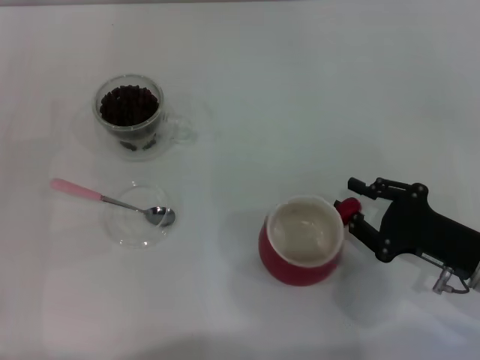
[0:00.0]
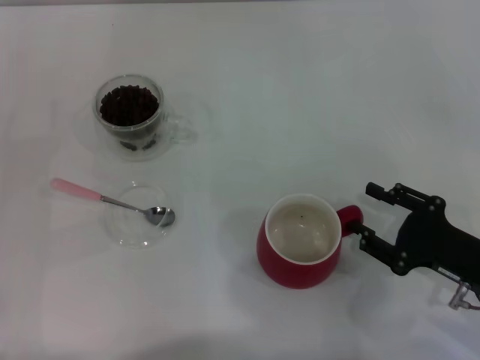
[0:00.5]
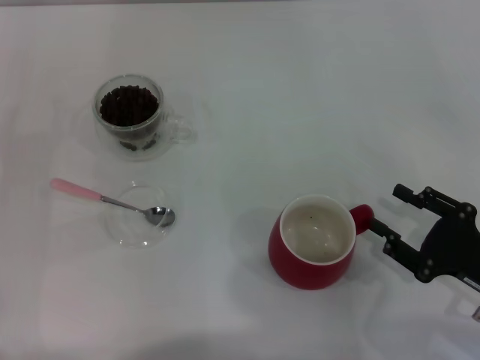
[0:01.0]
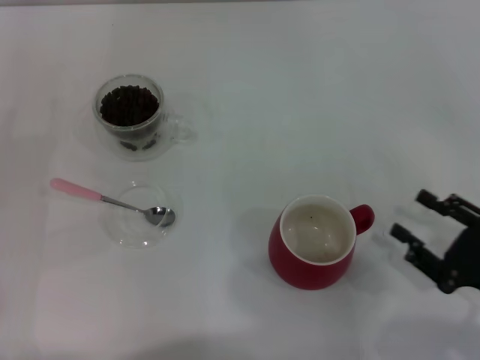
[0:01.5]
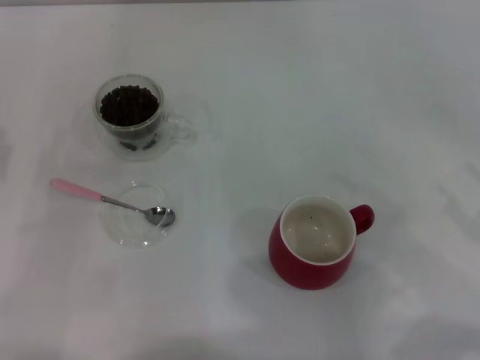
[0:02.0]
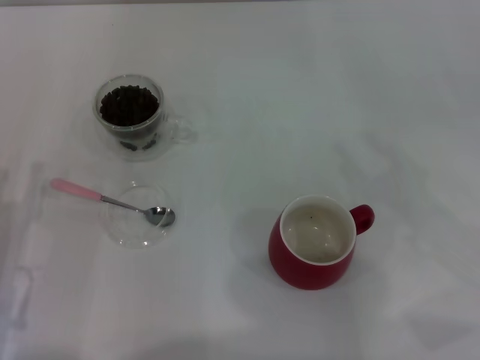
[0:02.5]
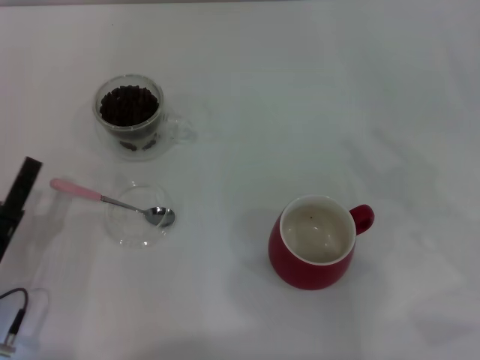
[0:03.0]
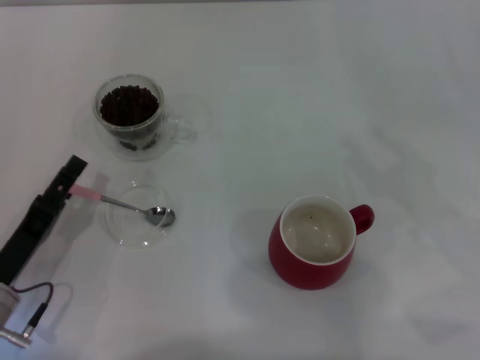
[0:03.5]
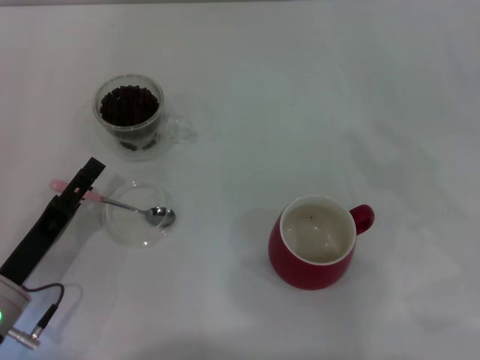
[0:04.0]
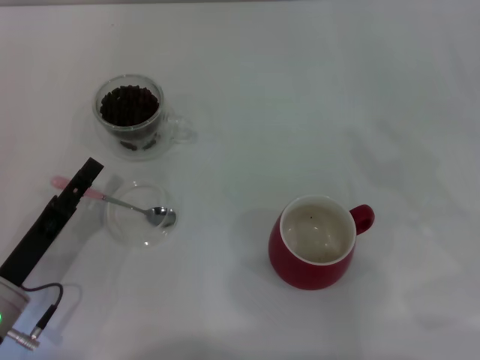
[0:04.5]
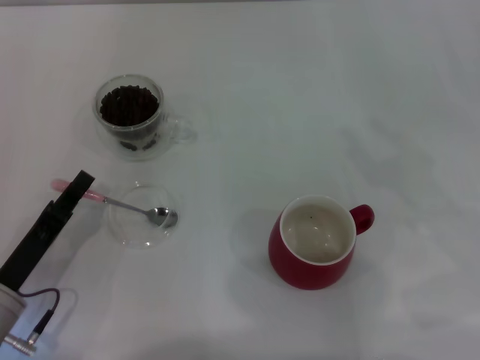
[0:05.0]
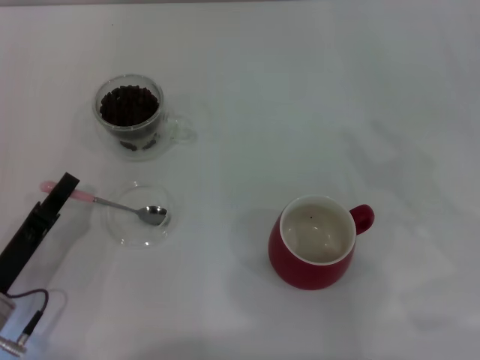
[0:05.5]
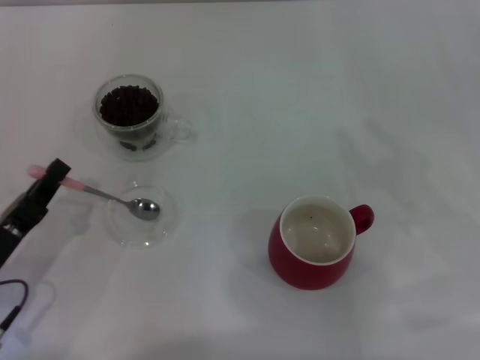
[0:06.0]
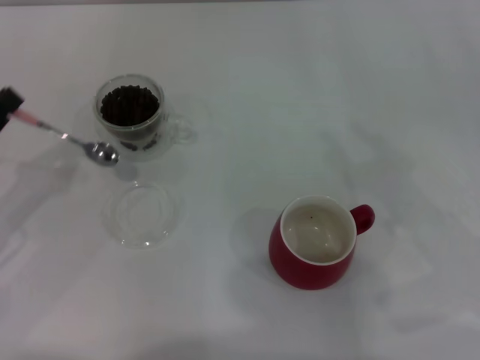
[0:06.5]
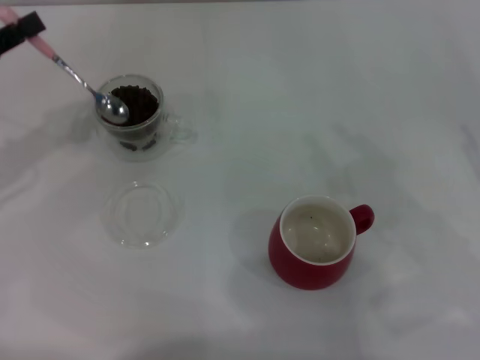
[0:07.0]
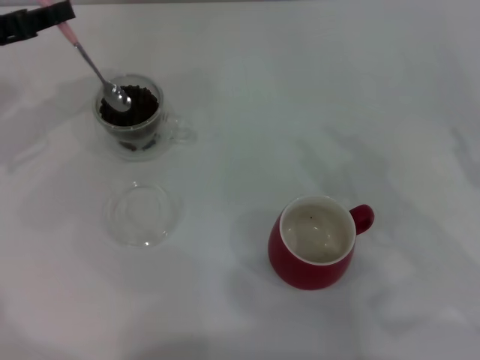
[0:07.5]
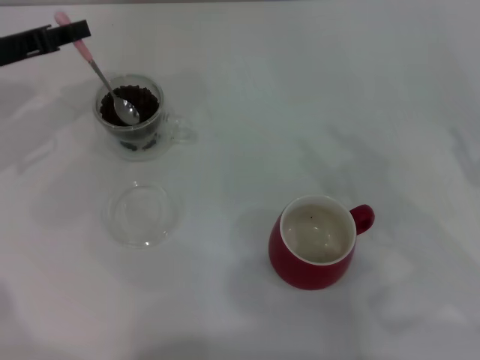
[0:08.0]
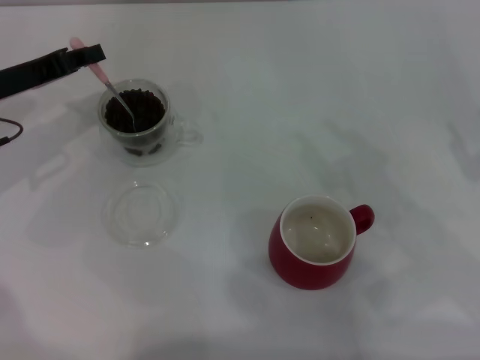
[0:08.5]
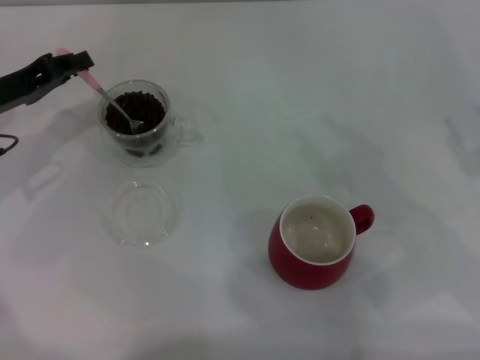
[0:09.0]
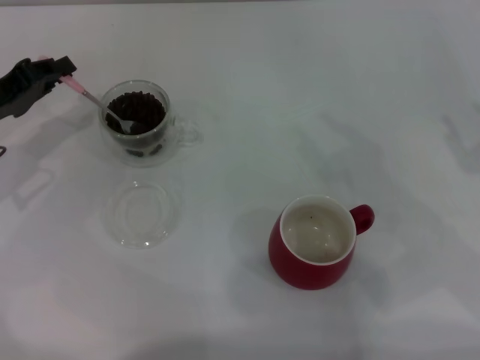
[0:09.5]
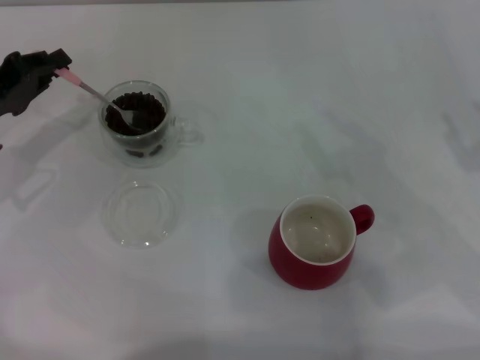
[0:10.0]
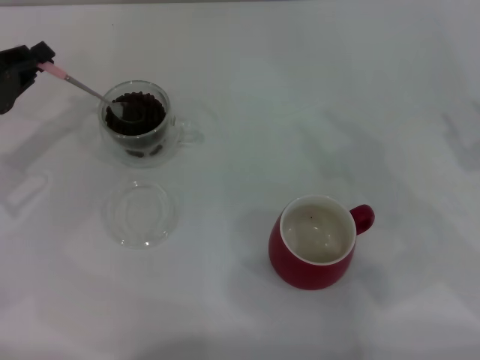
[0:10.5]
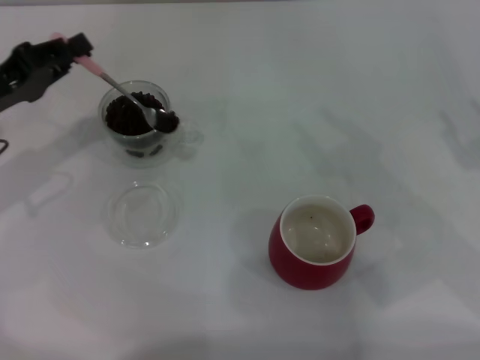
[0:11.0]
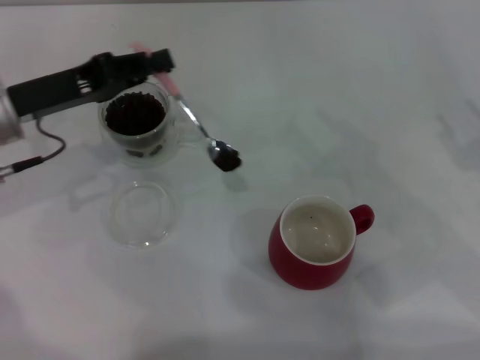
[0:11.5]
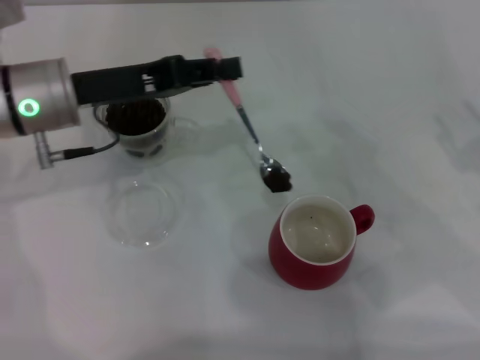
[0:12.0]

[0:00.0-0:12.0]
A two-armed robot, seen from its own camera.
Task of the whole recording: Use a pink spoon to take out the coffee beans from the glass and pour them into the red cup.
Step, 0:02.0 to 0:06.0: Pick up the spoon with the right gripper.
0:00.0 to 0:02.0: The left gripper ends up roughly 5 cm from where it was. Meanwhile the right gripper travels to the right, backward and upward by some 10 cm, and opens up.
0:02.0 to 0:04.0: The left gripper goes about 10 cm to the right and downward.
0:04.0 to 0:06.0: The left gripper closes up.
0:06.0 to 0:08.0: The left gripper goes about 25 cm forward and upward.
0:08.0 to 0:10.0: The left gripper ends up roughly 5 cm from where it was.
0:10.0 to 0:12.0: The left gripper moves to the right, roughly 10 cm.

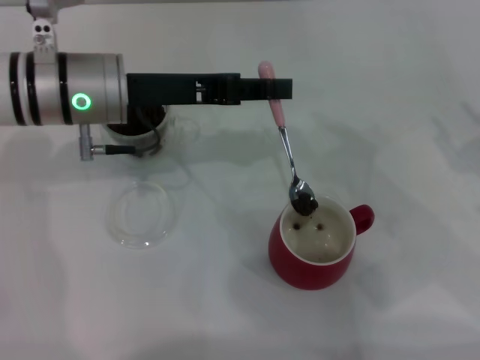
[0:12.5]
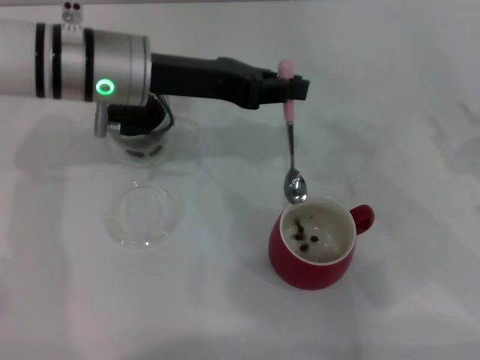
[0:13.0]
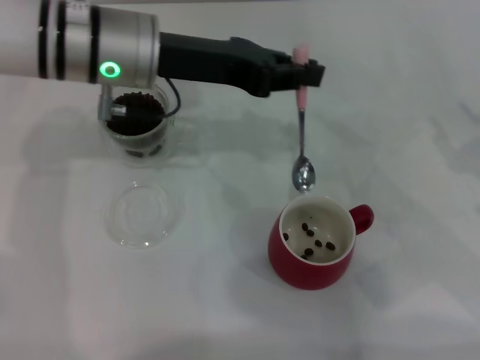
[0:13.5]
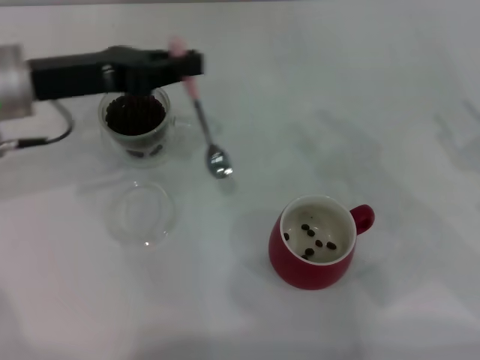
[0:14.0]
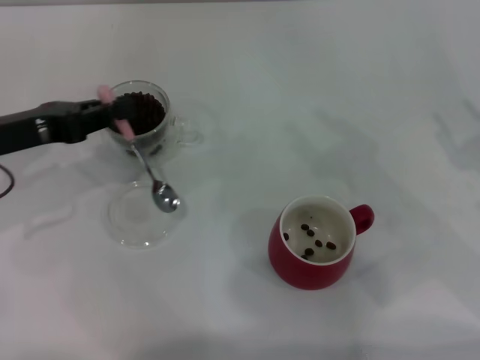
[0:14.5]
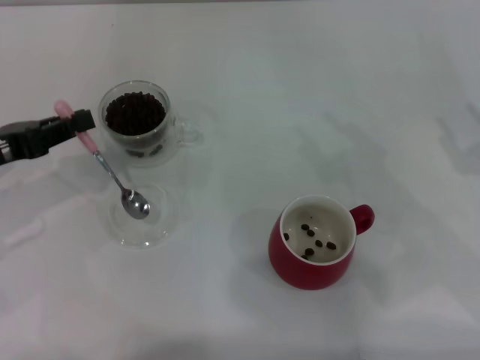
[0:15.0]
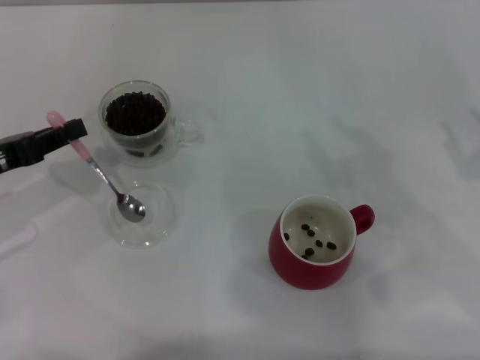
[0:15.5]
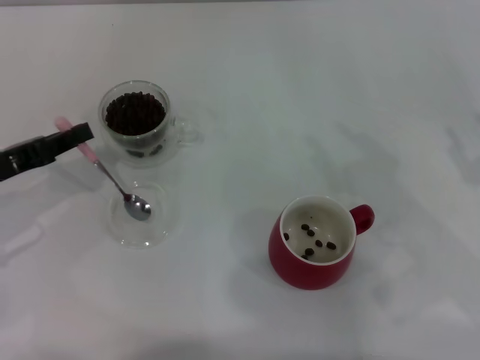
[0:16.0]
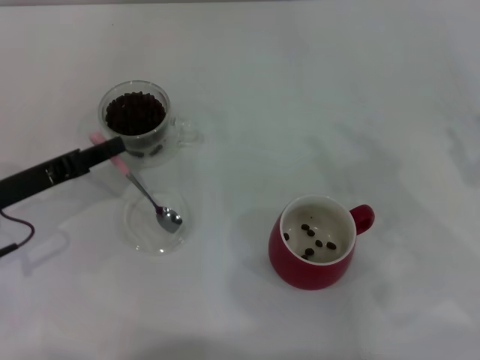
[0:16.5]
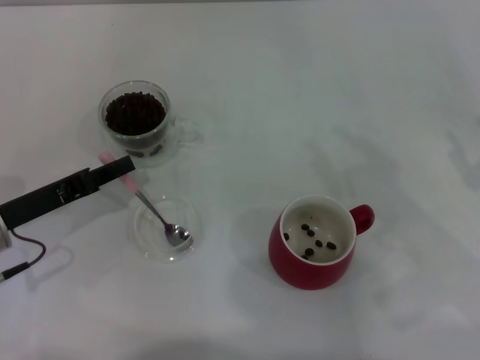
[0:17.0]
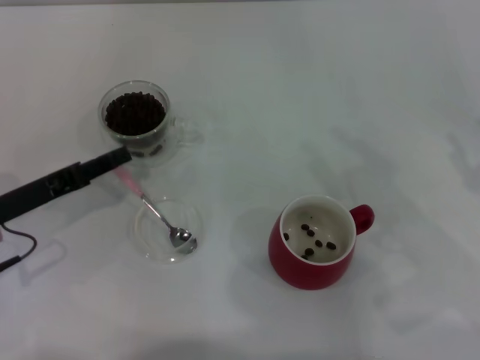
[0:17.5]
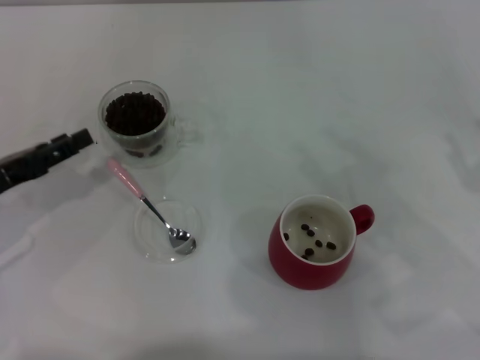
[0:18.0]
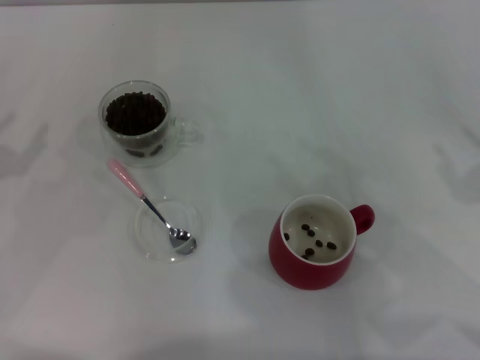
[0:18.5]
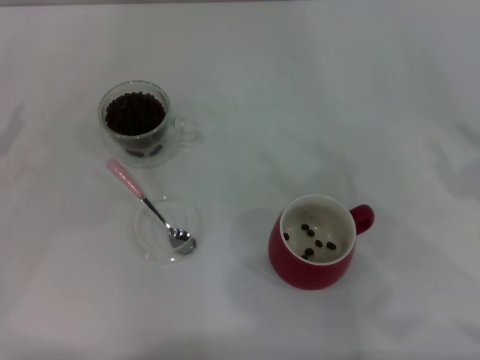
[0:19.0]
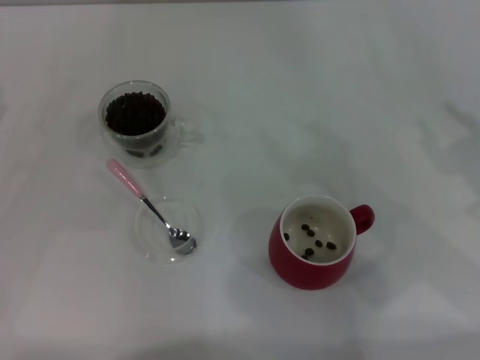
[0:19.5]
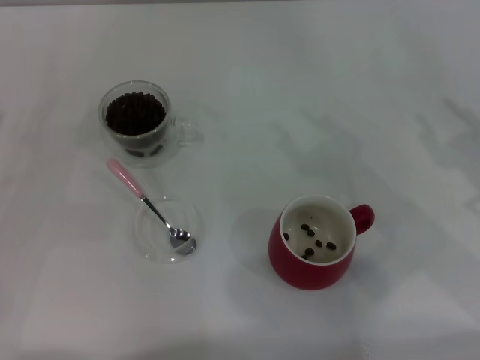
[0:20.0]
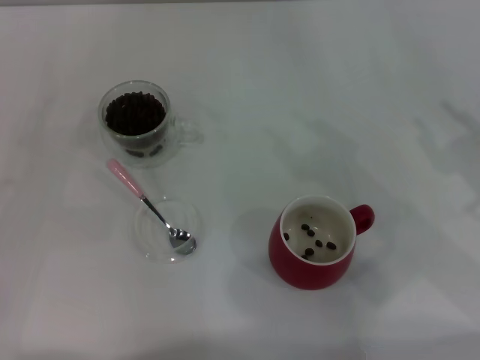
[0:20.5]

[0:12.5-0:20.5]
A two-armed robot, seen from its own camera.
Task of the whole recording: Use a pink spoon to take out the coffee beans from the glass and pour them into the red cup.
0:12.5 to 0:14.5: The left gripper travels to the left by some 15 cm.
0:14.5 to 0:16.5: The left gripper moves downward, roughly 5 cm.
0:16.5 to 0:18.5: The left gripper goes some 10 cm to the left, and opens its fingers.
